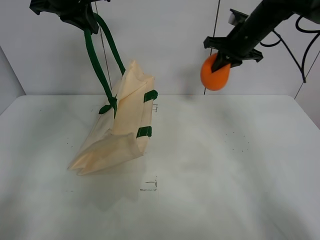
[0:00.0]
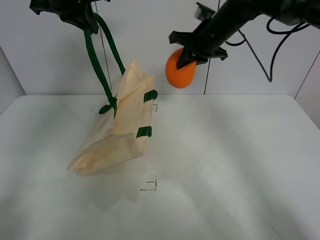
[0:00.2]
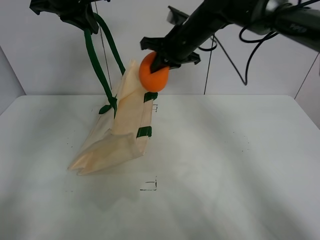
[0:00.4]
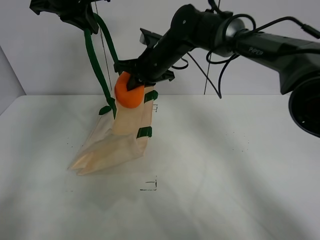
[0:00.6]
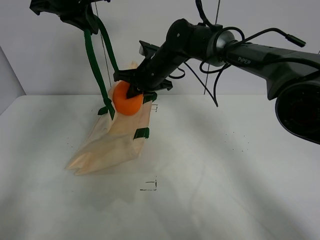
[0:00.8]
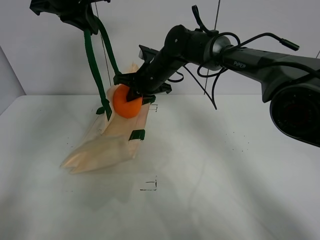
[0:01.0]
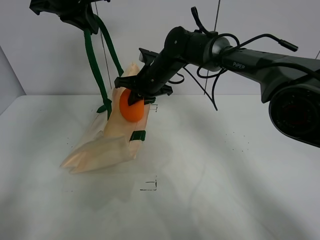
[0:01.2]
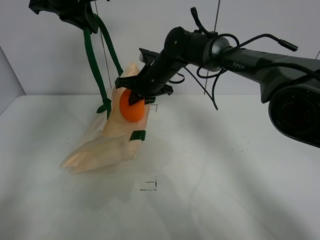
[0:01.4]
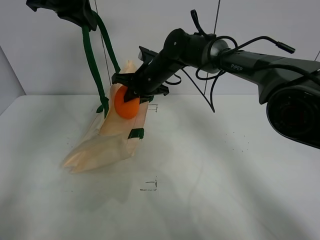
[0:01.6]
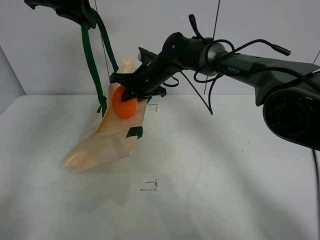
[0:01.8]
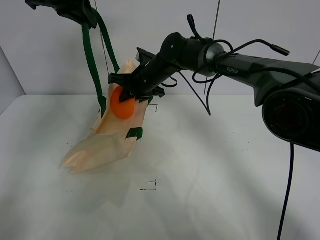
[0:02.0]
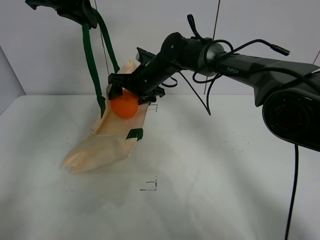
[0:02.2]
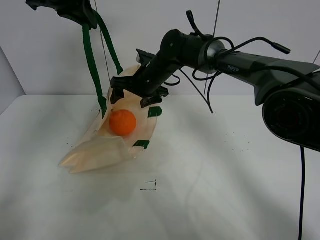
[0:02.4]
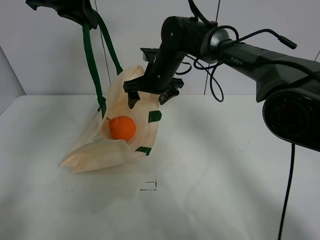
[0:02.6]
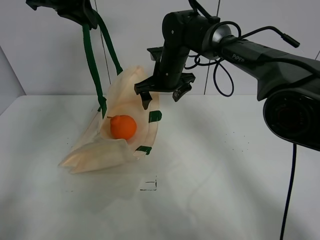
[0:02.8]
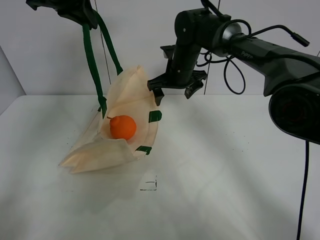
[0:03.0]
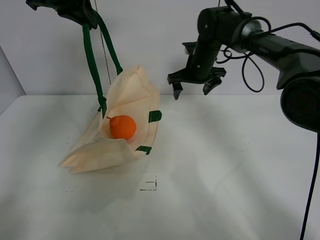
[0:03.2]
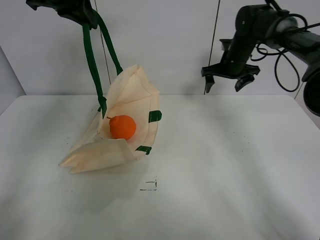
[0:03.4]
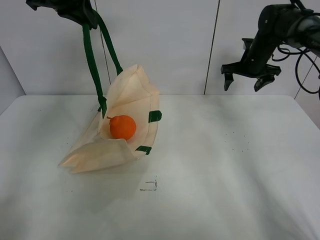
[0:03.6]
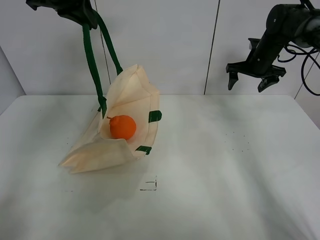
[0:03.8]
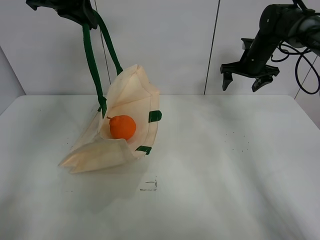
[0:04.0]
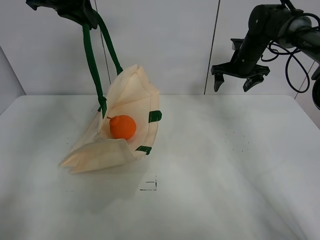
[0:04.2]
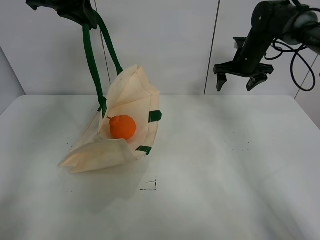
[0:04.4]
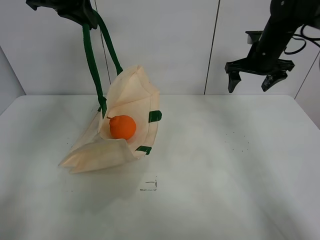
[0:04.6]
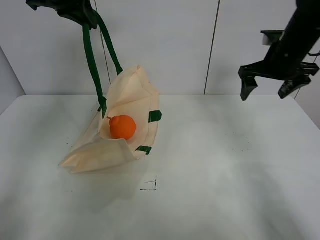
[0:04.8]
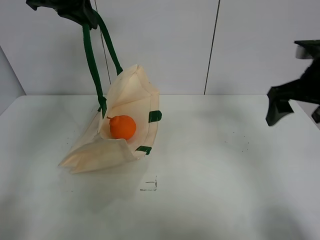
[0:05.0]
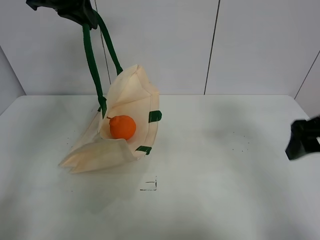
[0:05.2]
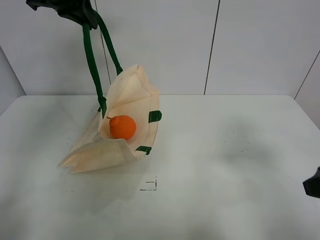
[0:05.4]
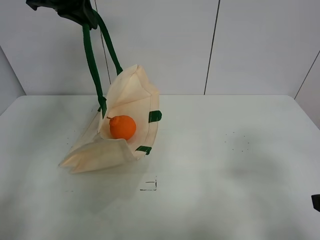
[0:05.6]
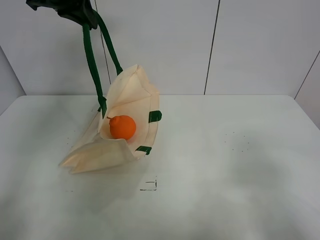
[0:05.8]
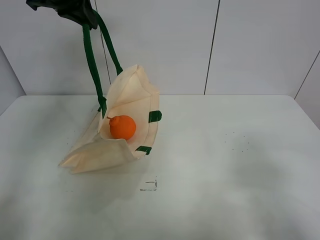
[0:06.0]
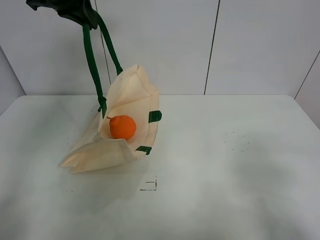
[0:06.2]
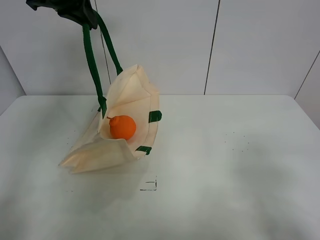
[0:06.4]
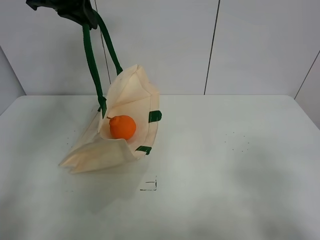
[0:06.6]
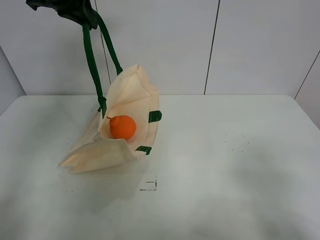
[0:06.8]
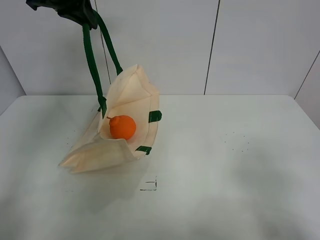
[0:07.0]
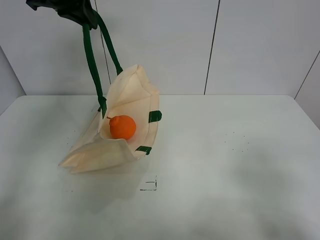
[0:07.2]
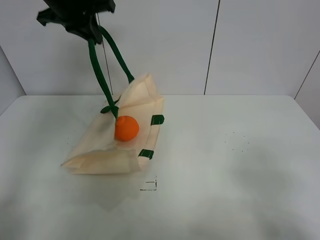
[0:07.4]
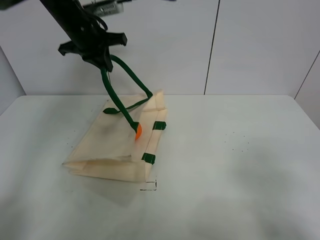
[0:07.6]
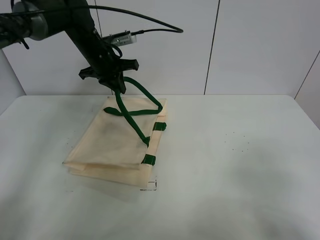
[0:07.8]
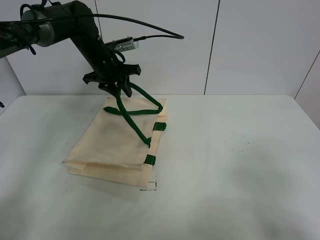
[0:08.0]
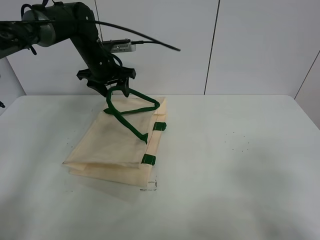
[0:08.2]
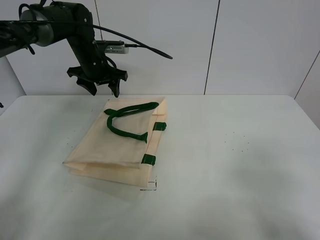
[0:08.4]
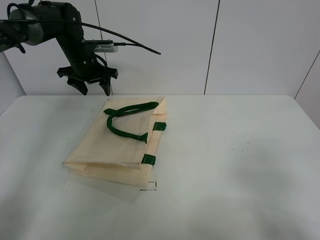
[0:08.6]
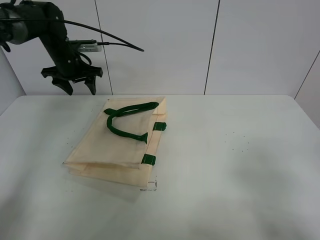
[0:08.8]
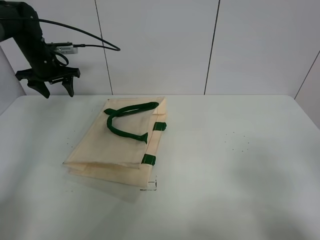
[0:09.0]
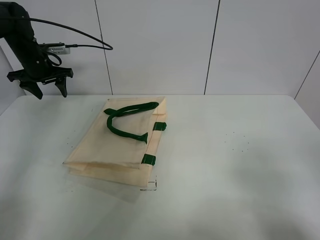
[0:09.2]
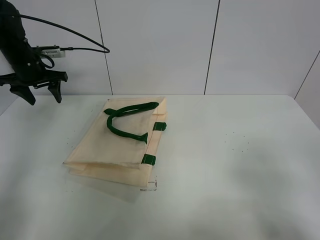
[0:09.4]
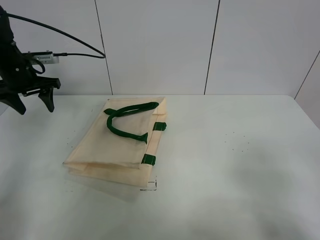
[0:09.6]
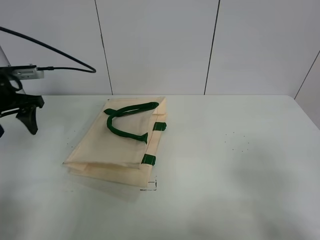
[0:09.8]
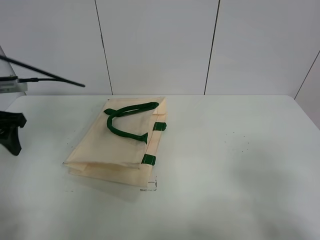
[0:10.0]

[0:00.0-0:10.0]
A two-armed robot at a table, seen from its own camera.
Task of the whole recording: open the white linen bag and put the orange in the bag.
Step, 0:00.0 to 0:02.8: Place the orange in the handbag with right gripper.
Step, 0:03.0 to 0:08.4: Put down the handbag with left gripper.
0:00.0 to 0:01.4: The right gripper moves to the left and downward, about 20 cm.
0:01.4 to 0:02.8: The right gripper opens.
0:02.8 to 0:04.2: The right gripper travels to the right by about 20 cm.
0:04.2 to 0:05.8: The right gripper moves backward, roughly 50 cm.
0:07.2 to 0:08.6: The left gripper heads downward and forward, covering roughly 20 cm, and opens its fingers.
0:08.6 to 0:10.0: The left gripper is displaced backward and to the left by about 25 cm.

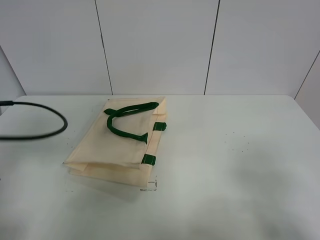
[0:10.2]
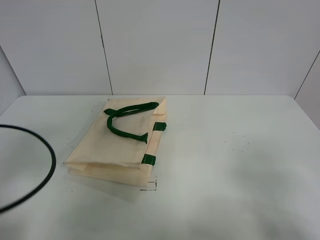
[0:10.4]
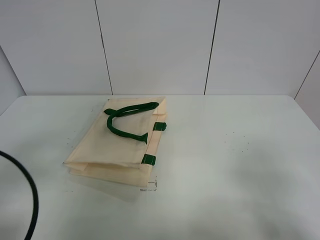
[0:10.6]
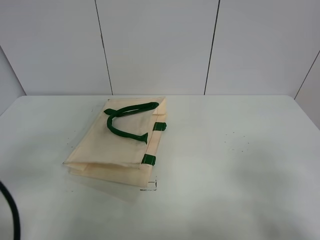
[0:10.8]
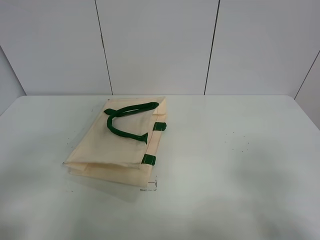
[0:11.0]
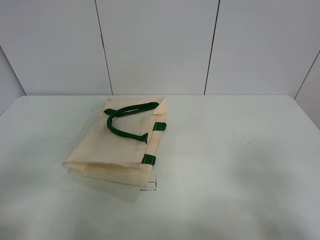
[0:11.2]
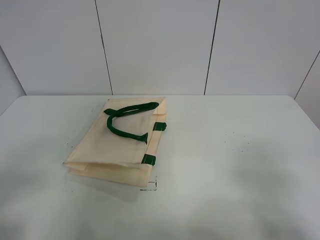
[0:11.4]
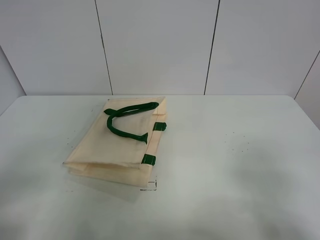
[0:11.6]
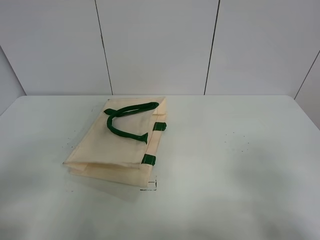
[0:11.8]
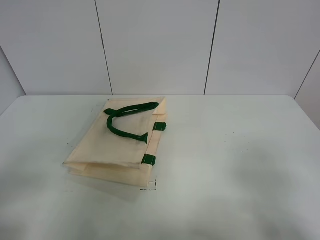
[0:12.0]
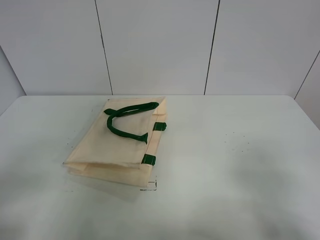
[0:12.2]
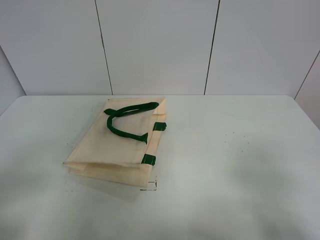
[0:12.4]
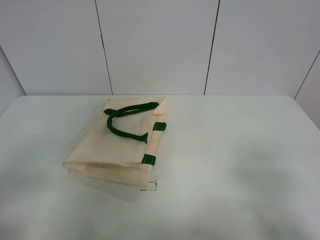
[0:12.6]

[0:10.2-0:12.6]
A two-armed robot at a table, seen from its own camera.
Task of the whole recording: open the white linen bag and put the orange in the bag.
0:10.2 to 0:11.4: The left gripper moves backward, roughly 15 cm.
0:11.4 to 0:12.6: Both grippers stay about where they are.

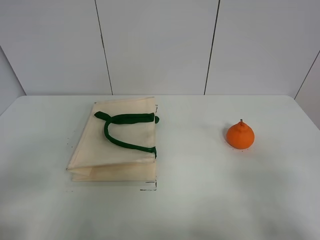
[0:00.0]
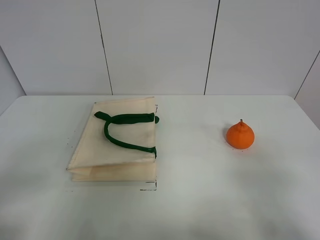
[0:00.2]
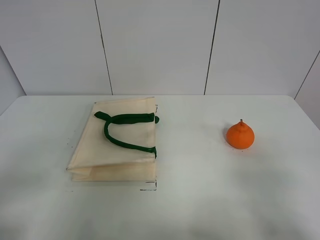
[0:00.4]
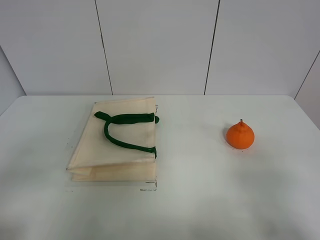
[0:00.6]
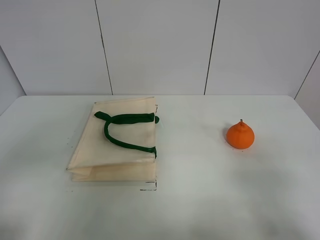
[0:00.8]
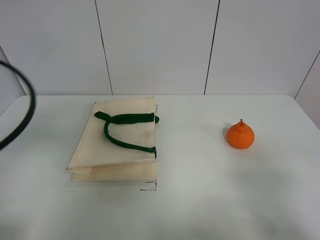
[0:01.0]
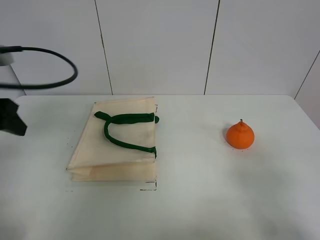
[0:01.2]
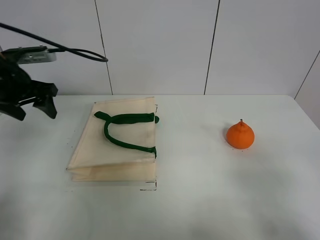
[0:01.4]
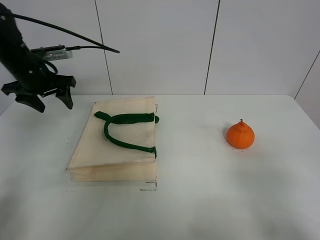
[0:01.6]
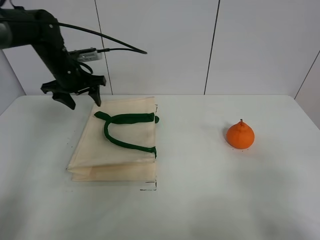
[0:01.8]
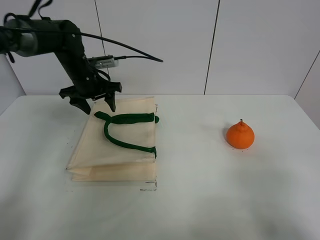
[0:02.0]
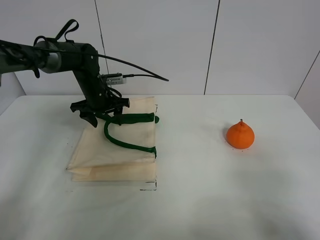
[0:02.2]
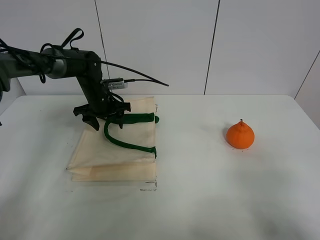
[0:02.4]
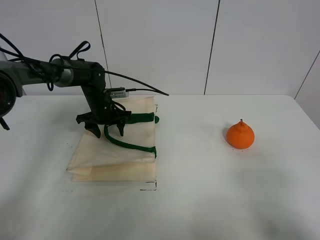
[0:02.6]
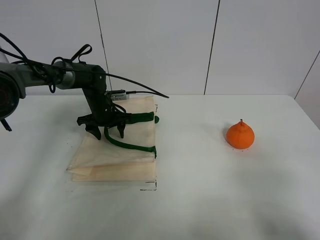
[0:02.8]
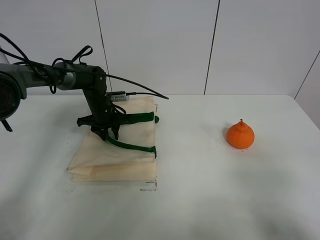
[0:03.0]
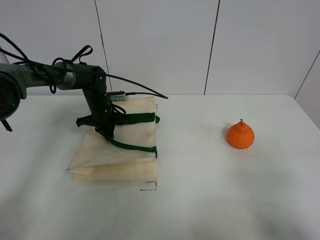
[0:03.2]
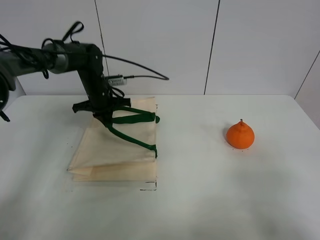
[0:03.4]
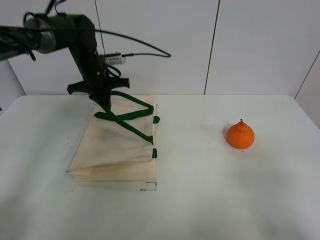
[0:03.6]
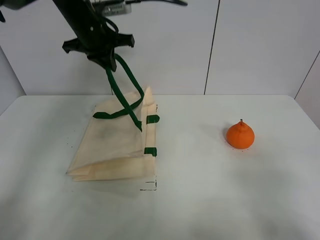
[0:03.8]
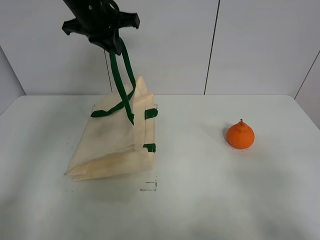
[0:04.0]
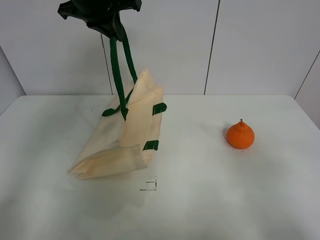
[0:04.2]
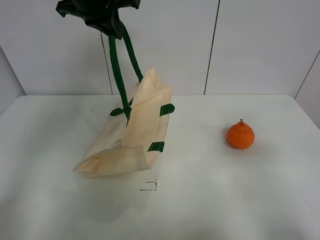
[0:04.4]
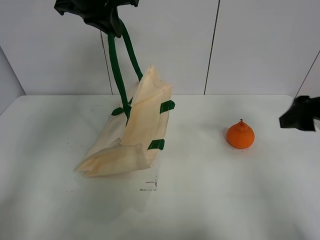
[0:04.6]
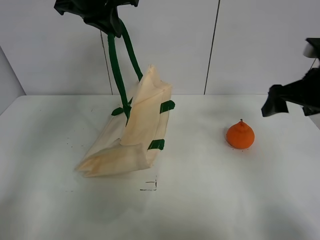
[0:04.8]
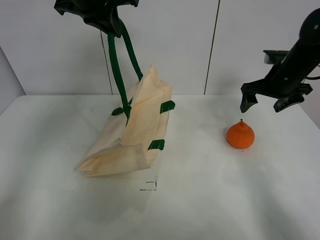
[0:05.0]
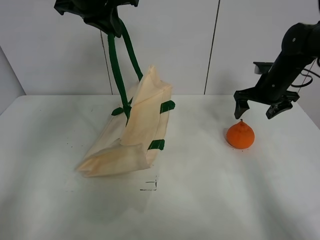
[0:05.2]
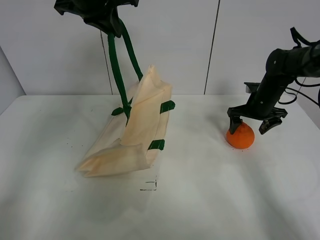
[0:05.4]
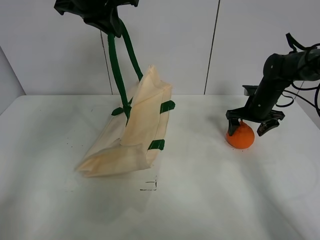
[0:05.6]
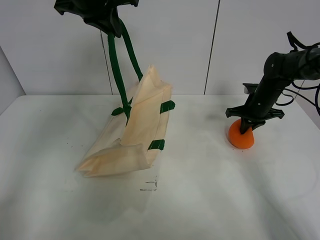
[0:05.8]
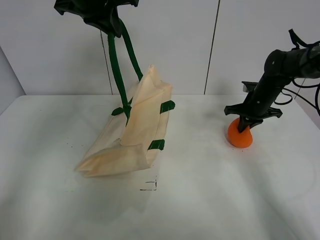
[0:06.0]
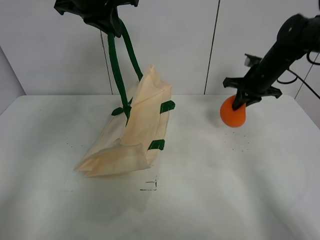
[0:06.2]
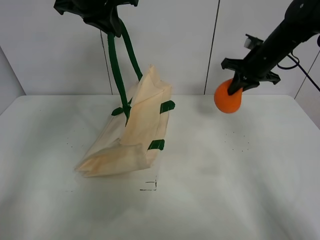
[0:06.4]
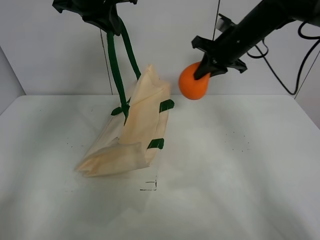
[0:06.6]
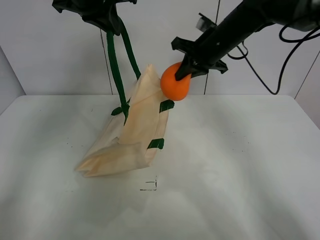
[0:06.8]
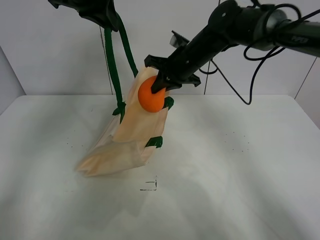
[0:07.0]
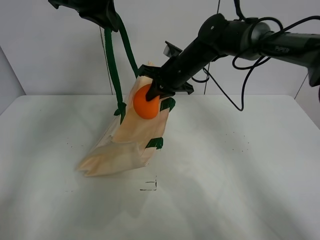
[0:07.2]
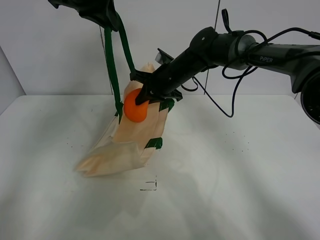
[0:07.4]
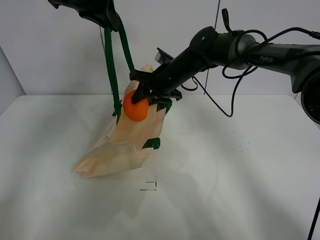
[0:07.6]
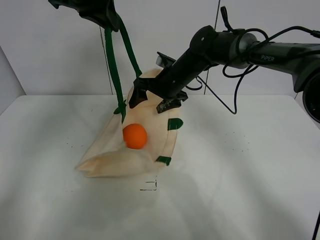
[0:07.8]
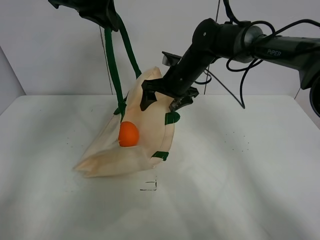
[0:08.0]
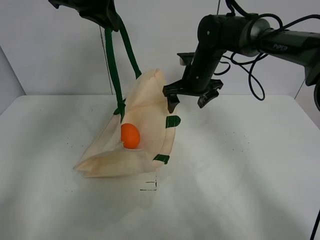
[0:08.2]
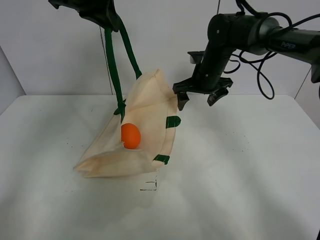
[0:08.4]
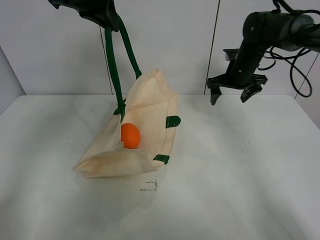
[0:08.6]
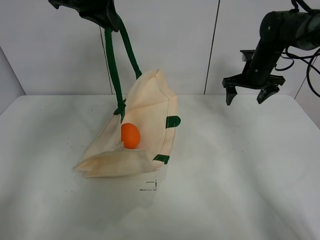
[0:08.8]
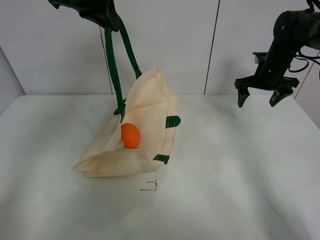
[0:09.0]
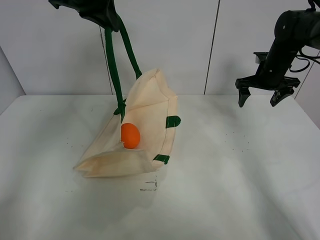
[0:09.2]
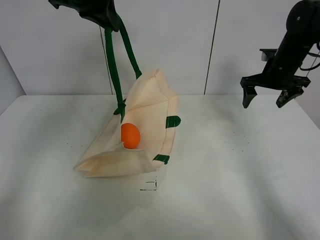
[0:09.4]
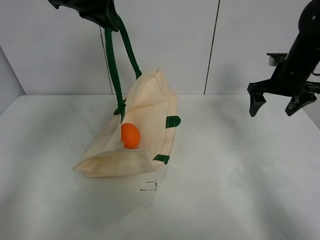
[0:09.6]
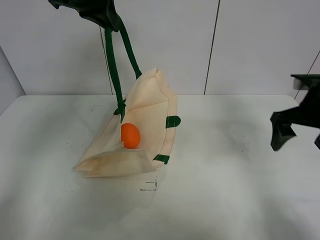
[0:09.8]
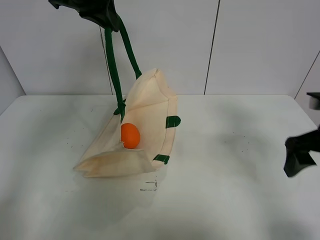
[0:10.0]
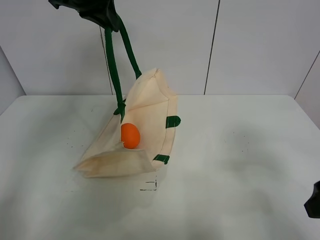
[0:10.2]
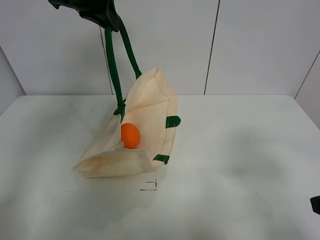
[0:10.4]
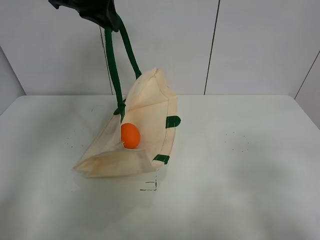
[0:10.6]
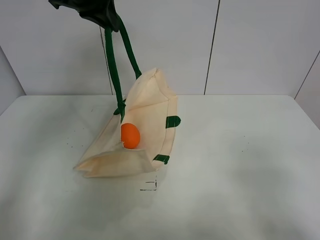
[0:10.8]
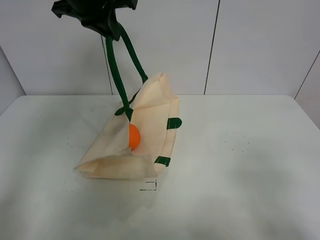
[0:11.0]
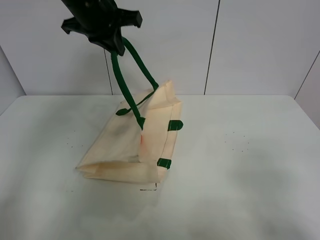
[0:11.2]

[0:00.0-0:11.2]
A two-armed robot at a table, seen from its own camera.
Task of the whole recording: open the white linen bag and put the orange in the bag.
Step, 0:00.0 to 0:04.2: Lift the handbag with left gripper.
Step, 0:04.4 to 0:05.8: Grasp the orange with right gripper.
Step, 0:06.0 to 0:08.0: Place the orange in the handbag with right gripper.
0:00.0 to 0:01.6: The left gripper travels forward by about 40 cm.
0:01.6 to 0:03.2: The left gripper heads downward, to the right and forward, covering approximately 20 cm, and closes its fingers.
0:03.2 to 0:04.8: The right gripper shifts some 30 cm forward; the left gripper goes approximately 30 cm upward.
0:04.8 to 0:06.4: The right gripper shifts approximately 15 cm forward, reaches some 15 cm downward, then returns, and closes up.
0:06.4 to 0:08.0: The right gripper goes roughly 15 cm to the left, and opens up.
0:08.0 to 0:09.6: The right gripper shifts some 20 cm to the right.
0:09.6 to 0:11.2: The left gripper travels downward by some 5 cm. Meanwhile the right gripper travels backward by about 35 cm.
